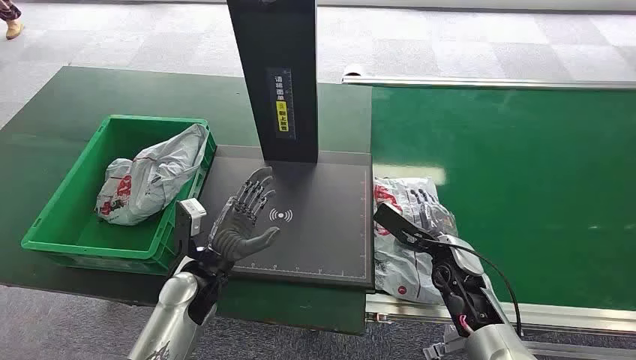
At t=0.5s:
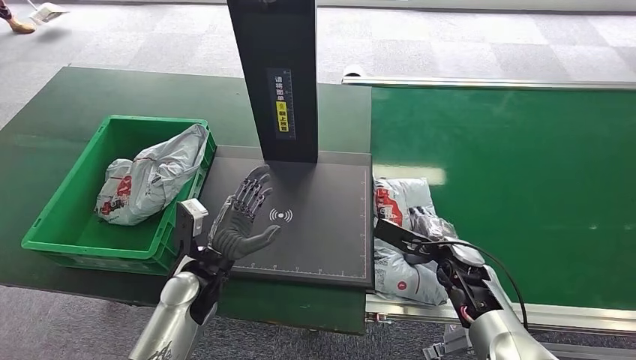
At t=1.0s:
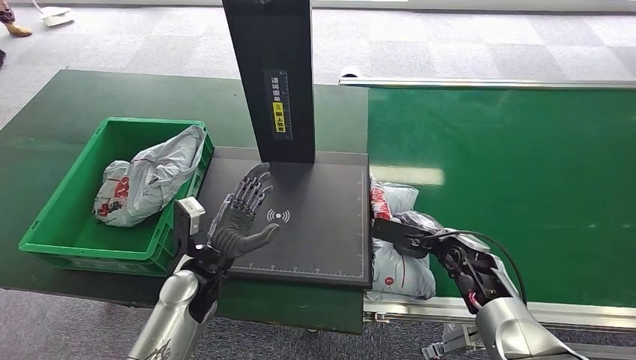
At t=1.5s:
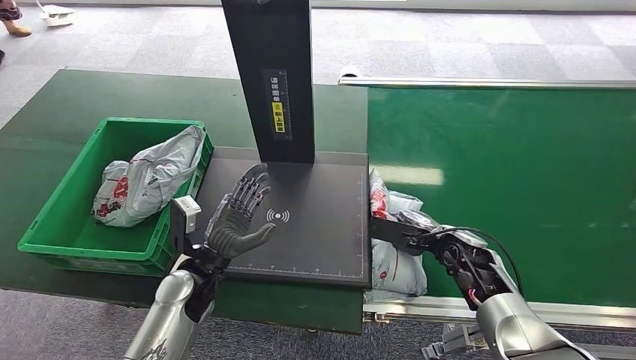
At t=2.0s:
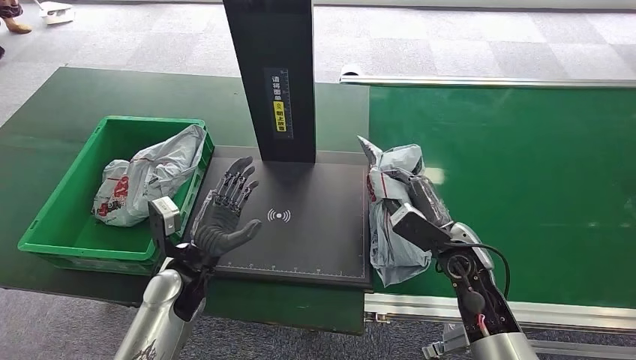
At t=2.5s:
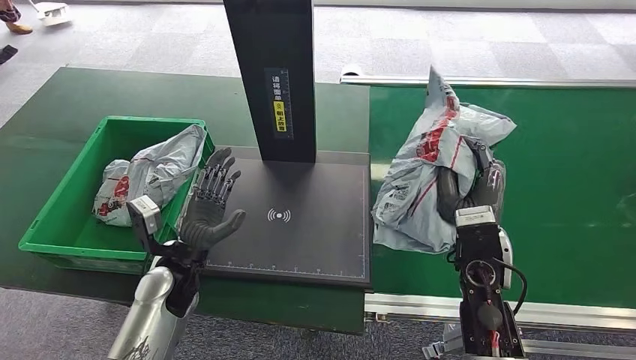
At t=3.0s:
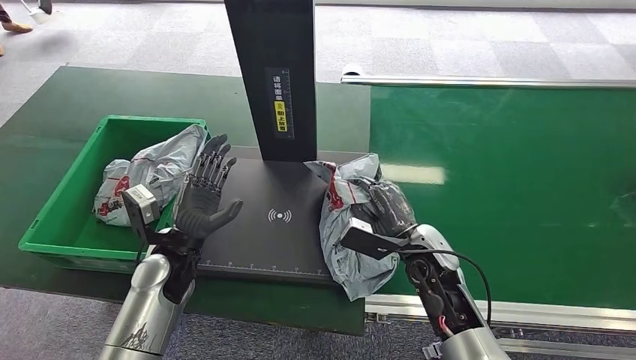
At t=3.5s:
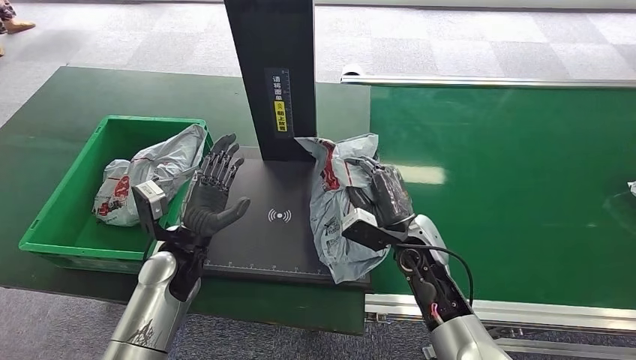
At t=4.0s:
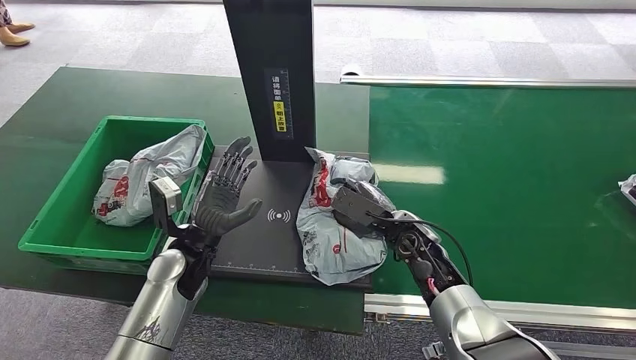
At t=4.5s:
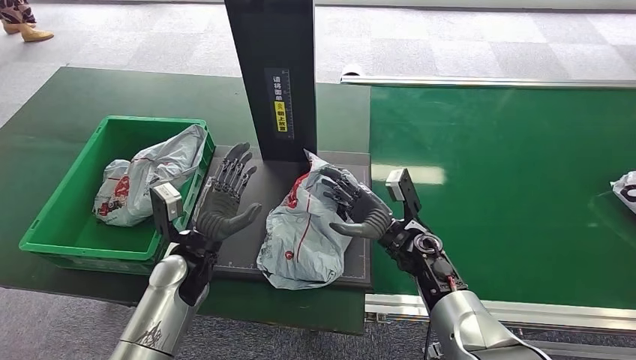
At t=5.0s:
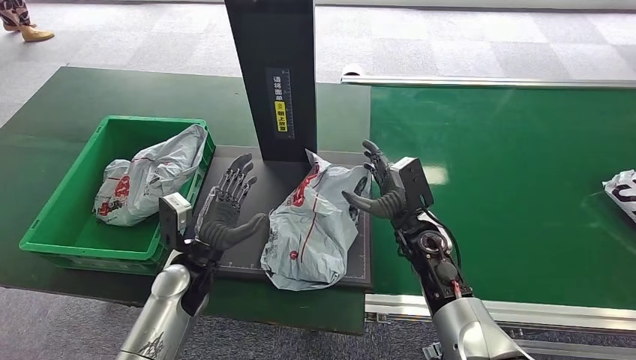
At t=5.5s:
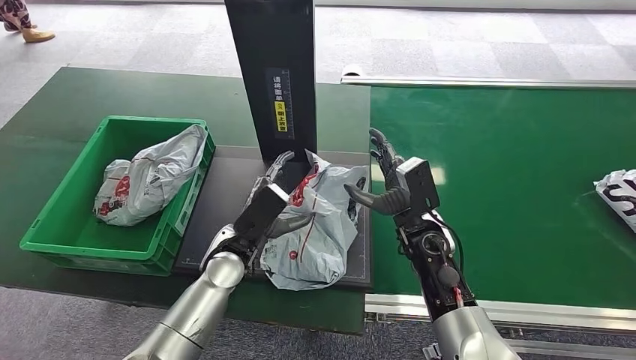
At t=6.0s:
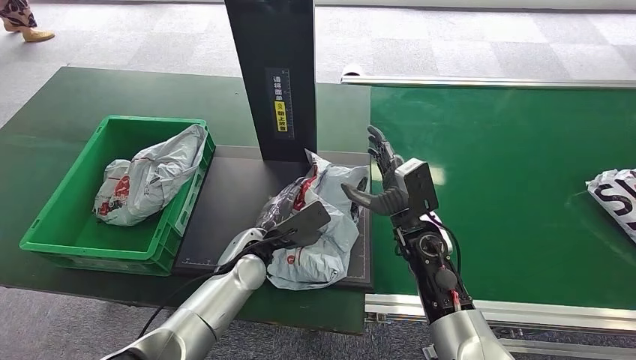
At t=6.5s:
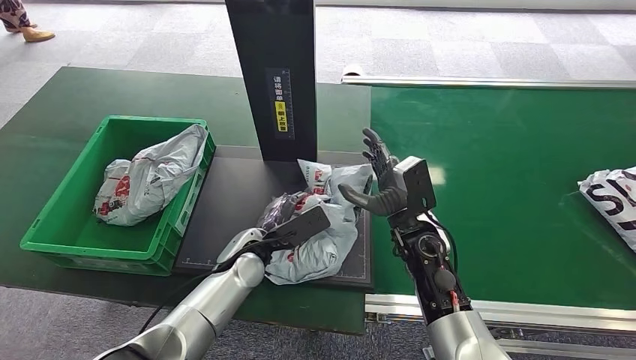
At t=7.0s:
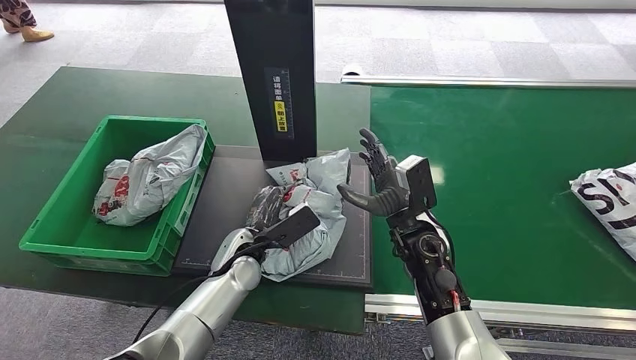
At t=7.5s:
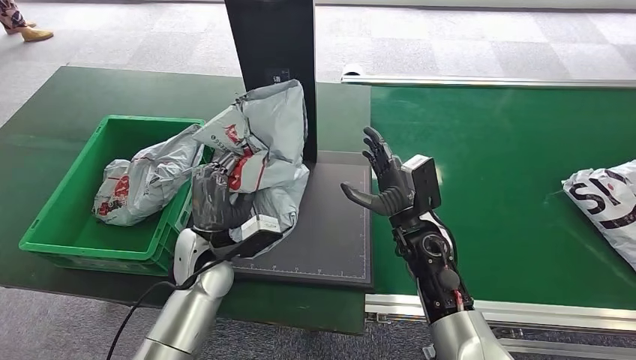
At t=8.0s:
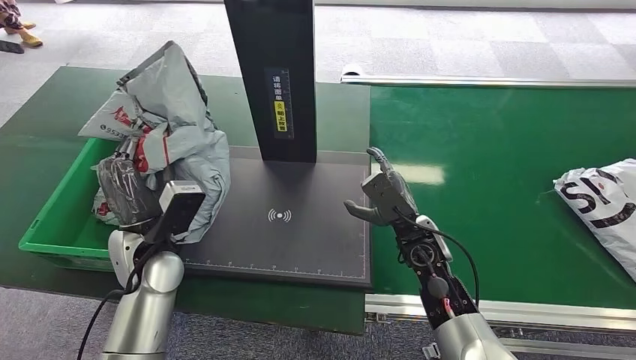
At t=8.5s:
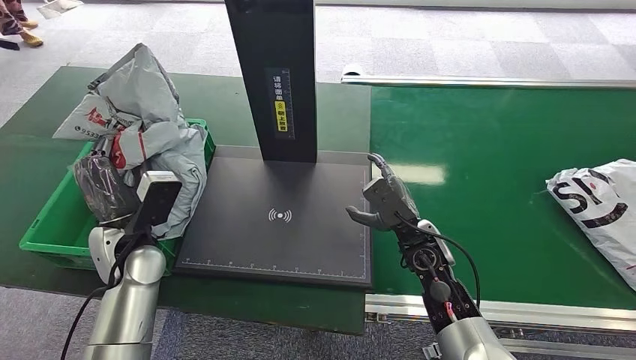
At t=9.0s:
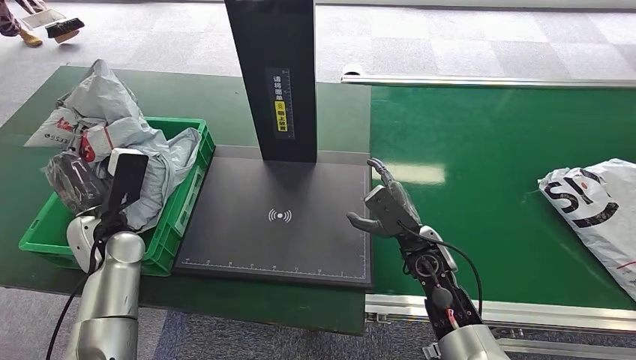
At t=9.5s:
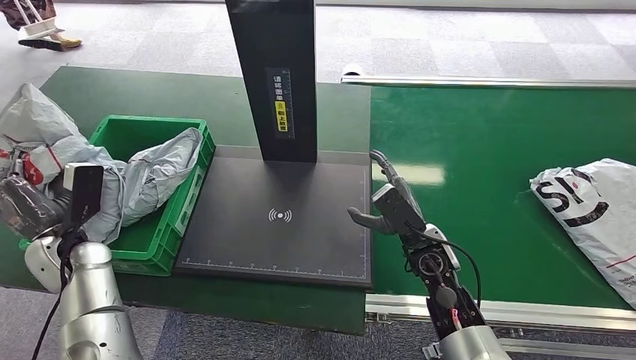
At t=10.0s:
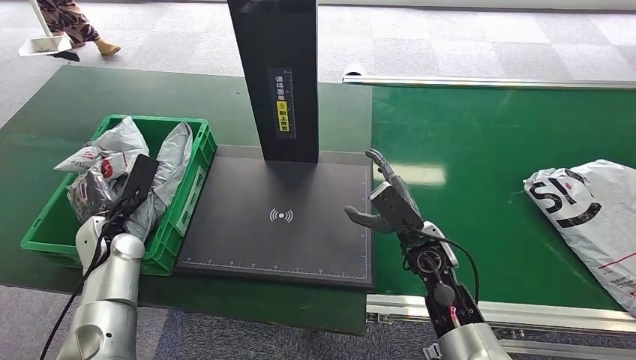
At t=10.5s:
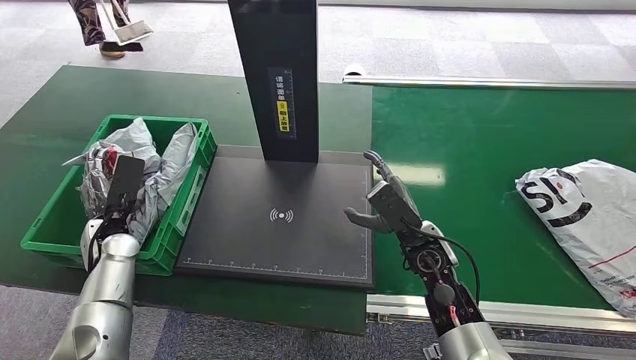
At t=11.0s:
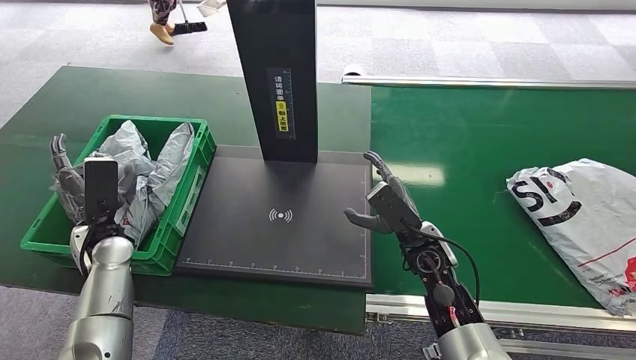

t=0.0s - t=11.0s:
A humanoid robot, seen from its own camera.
Task of the whole recording: Weigh the package on the weighing device and place it in the left basket.
Step, t=0.0s - t=1.5s: Pick up the package from the conveyor belt.
Step, t=3.0s - t=4.5s: Place the package onto the inbound machine.
Step, t=6.0s - t=7.5s: Pick up the package from the inbound machine.
Step, t=9.0s - t=11.0s: Place the package into the parcel locker.
t=2.0s - t=3.5s: The right hand is displaced to the left by about 5 cm.
t=3.5s - t=5.5s: The left hand heads to the right, covering roughly 10 cm.
